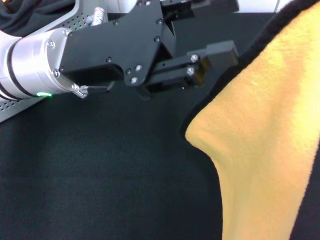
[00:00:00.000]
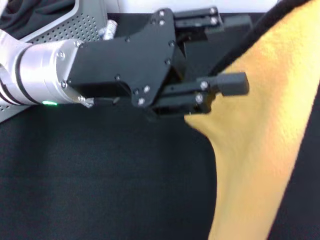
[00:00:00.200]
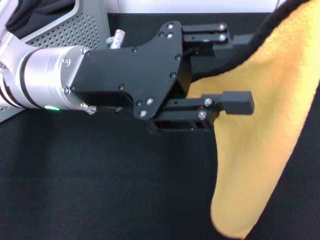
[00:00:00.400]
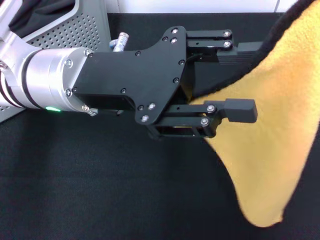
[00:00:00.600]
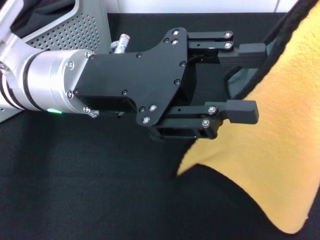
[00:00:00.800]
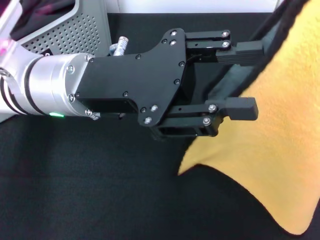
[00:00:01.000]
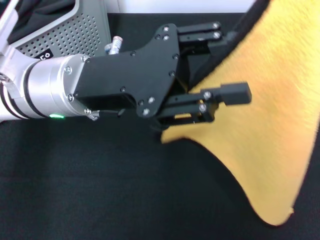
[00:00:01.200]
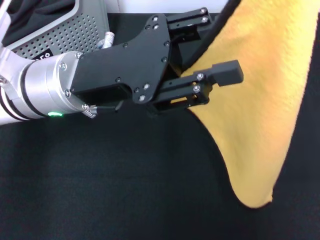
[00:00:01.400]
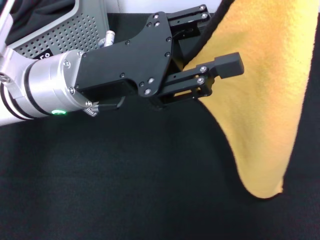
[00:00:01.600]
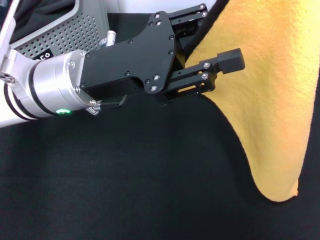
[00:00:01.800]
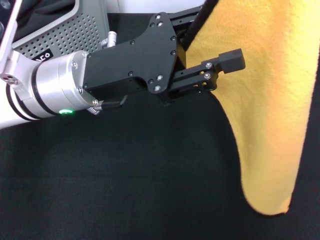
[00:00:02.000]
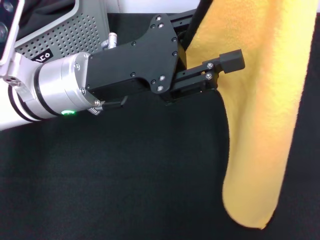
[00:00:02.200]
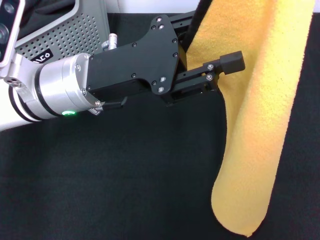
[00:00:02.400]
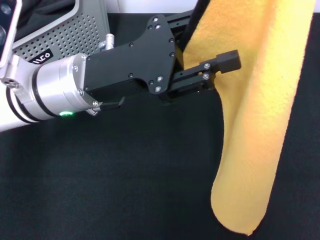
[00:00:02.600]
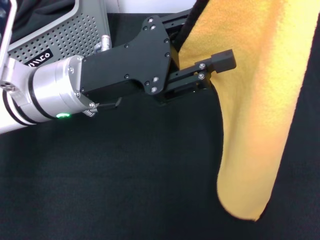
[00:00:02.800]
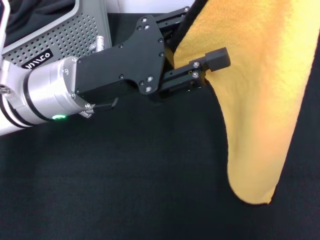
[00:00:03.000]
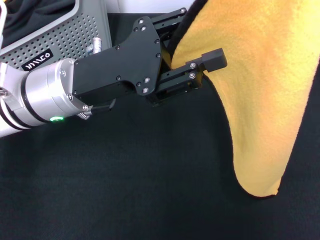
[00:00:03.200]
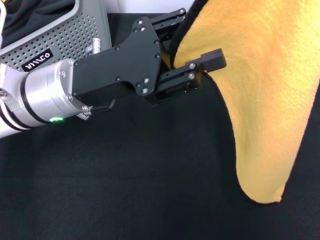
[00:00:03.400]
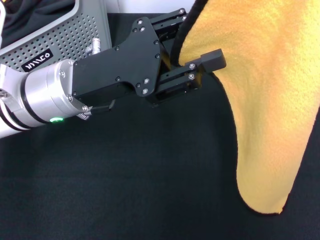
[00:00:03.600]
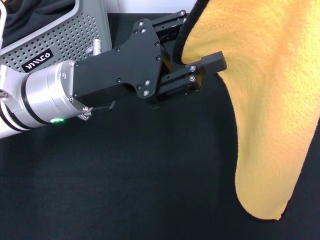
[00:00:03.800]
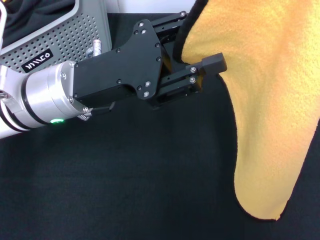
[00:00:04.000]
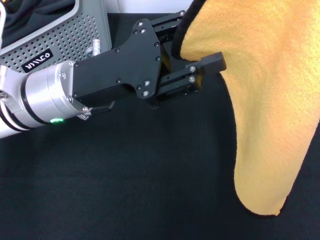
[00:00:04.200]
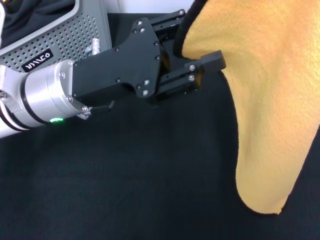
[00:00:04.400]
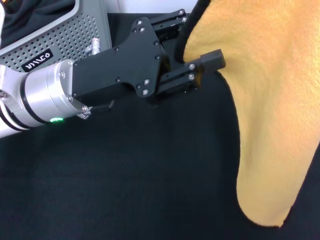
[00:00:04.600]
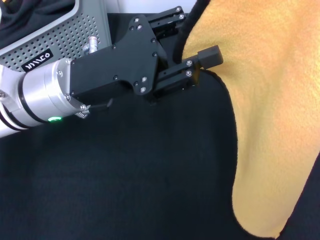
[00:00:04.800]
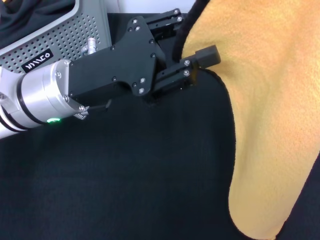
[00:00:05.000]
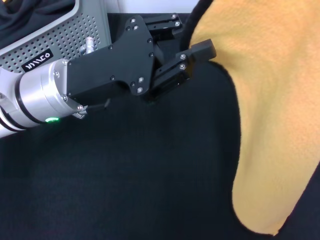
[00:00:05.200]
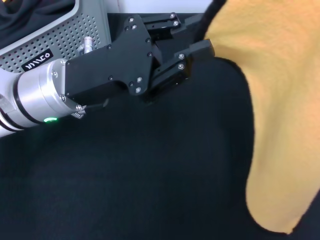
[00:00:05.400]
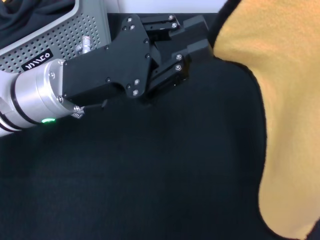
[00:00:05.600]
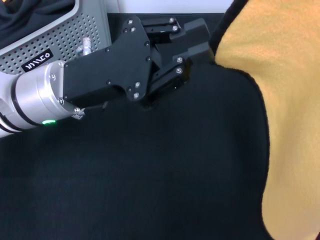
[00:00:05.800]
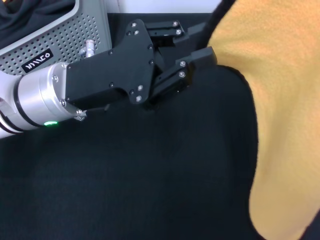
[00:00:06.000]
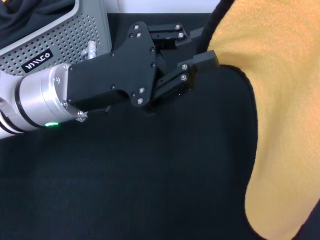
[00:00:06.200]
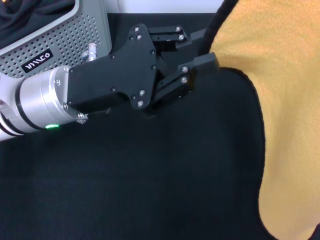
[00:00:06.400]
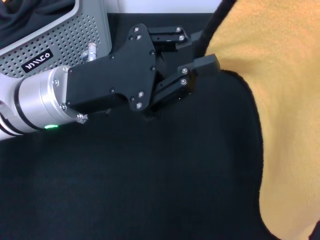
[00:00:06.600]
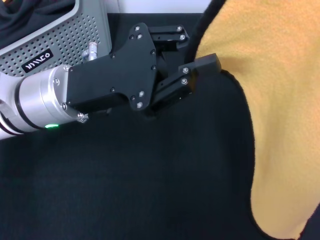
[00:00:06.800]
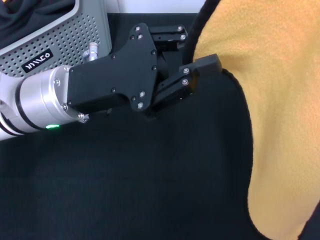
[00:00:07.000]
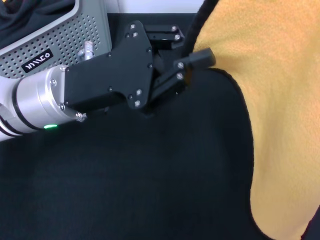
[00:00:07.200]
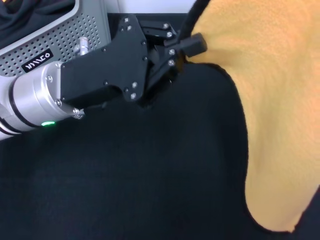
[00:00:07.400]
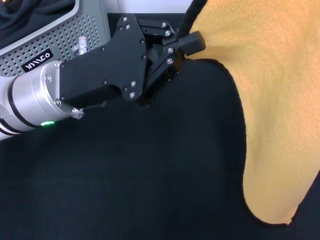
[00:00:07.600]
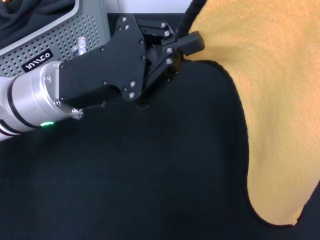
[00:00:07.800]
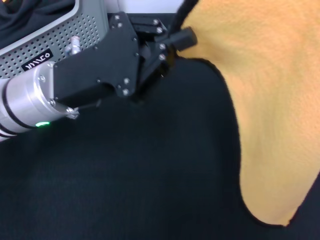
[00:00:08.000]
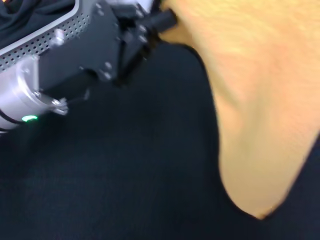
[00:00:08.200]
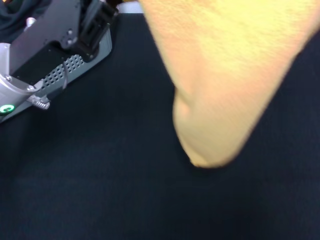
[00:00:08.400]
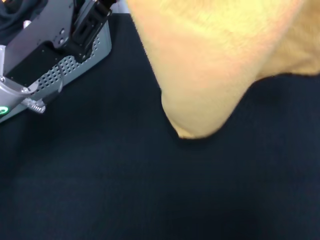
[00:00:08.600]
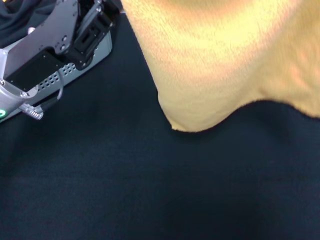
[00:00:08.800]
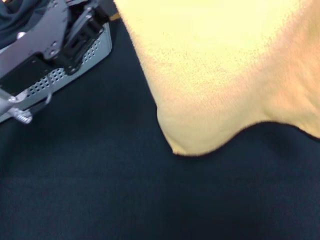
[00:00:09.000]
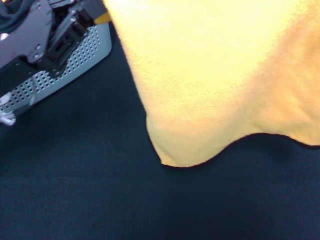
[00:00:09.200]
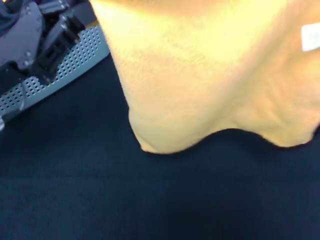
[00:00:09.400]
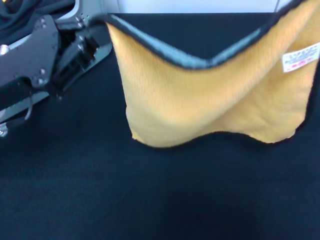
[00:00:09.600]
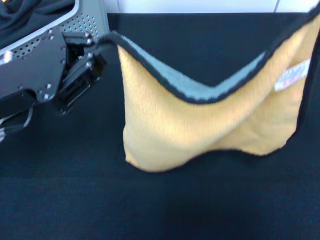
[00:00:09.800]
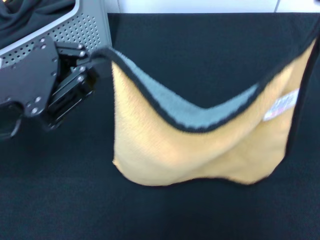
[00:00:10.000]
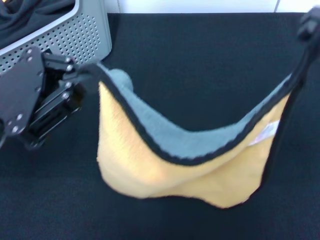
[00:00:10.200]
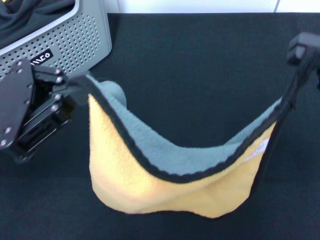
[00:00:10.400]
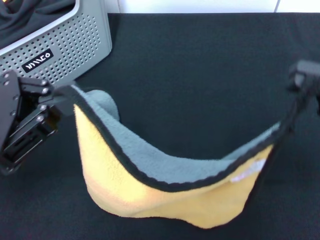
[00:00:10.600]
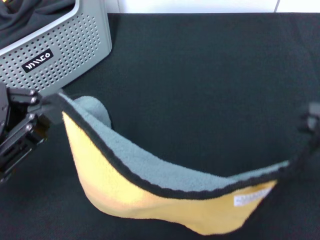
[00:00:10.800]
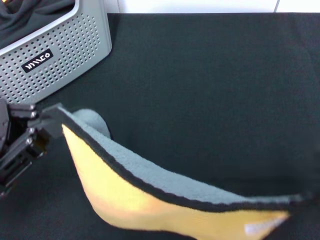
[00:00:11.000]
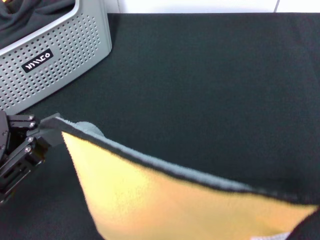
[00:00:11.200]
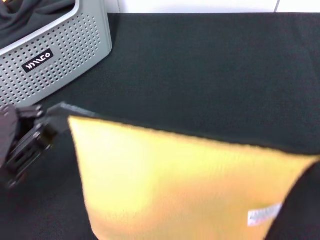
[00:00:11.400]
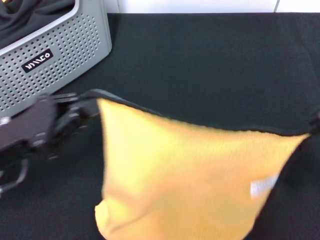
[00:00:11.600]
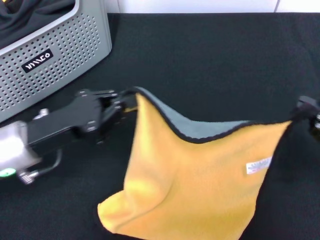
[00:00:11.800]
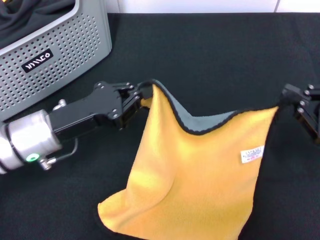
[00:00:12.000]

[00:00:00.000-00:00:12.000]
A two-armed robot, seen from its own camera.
Task of the whole recording: pick up the towel from the storage box and lay it flat on the black tablecloth.
00:00:01.600 to 00:00:03.000: There are only small adjustments of the grippers.
00:00:03.000 to 00:00:04.400: The grippers stay close to where they were, moving slightly.
00:00:06.000 to 00:00:07.600: The grippers make only small movements.
00:00:07.600 to 00:00:09.000: The right gripper heads downward, covering approximately 10 cm. The left gripper is displaced to the left by some 5 cm.
00:00:09.000 to 00:00:10.400: The right gripper goes roughly 10 cm downward and backward; the left gripper shifts approximately 5 cm backward.
00:00:10.400 to 00:00:12.000: The right gripper is displaced downward by roughly 15 cm, while the left gripper is displaced downward and forward by some 10 cm.

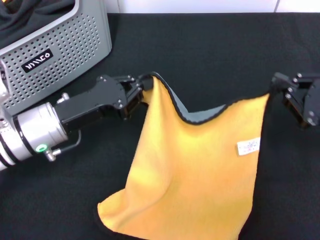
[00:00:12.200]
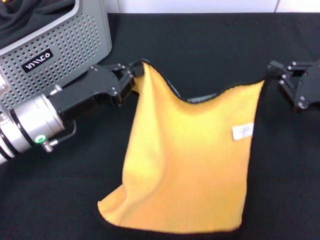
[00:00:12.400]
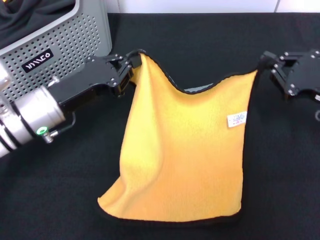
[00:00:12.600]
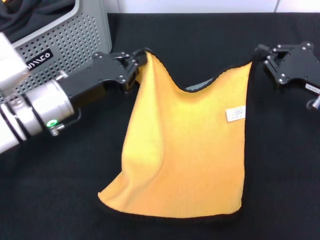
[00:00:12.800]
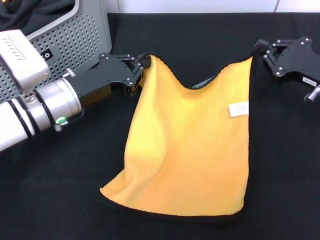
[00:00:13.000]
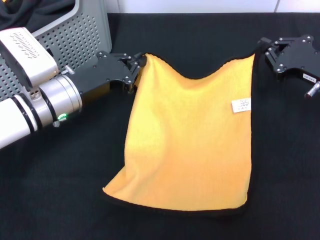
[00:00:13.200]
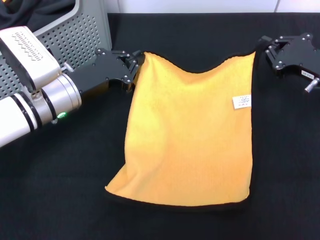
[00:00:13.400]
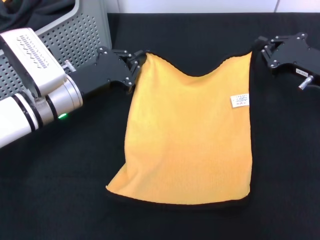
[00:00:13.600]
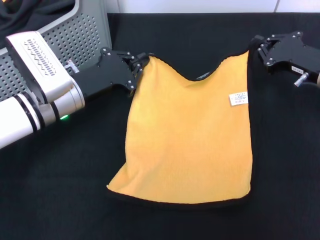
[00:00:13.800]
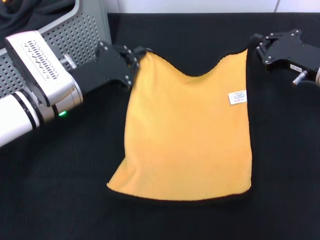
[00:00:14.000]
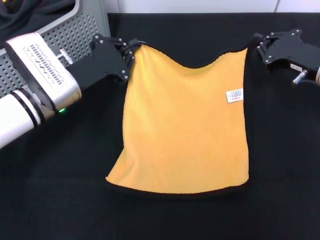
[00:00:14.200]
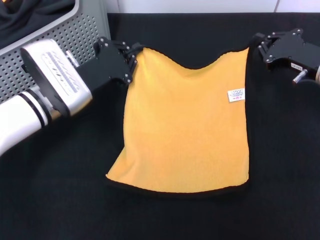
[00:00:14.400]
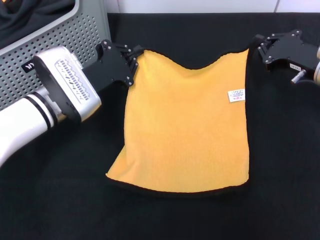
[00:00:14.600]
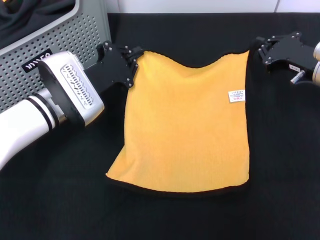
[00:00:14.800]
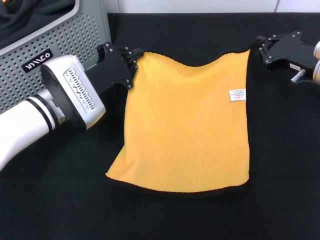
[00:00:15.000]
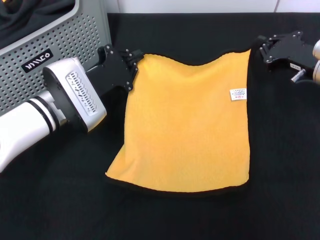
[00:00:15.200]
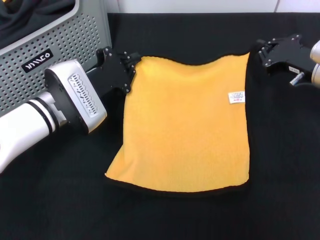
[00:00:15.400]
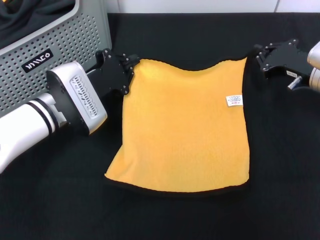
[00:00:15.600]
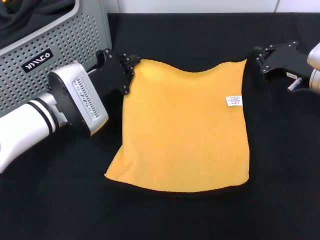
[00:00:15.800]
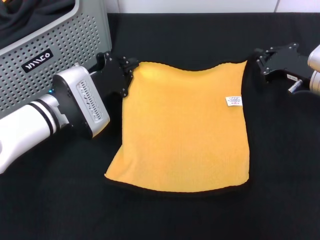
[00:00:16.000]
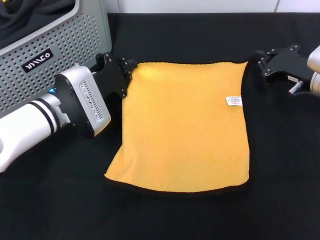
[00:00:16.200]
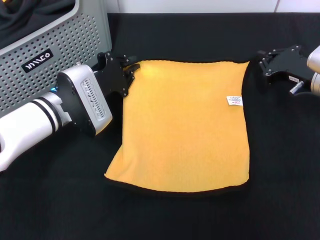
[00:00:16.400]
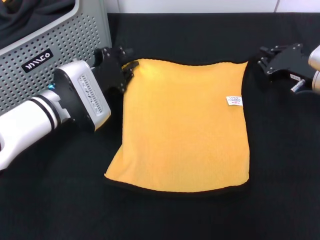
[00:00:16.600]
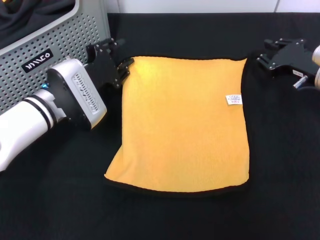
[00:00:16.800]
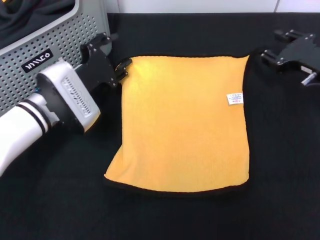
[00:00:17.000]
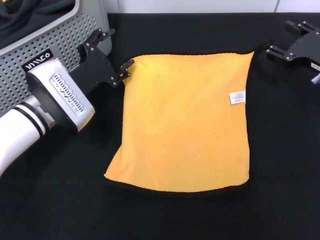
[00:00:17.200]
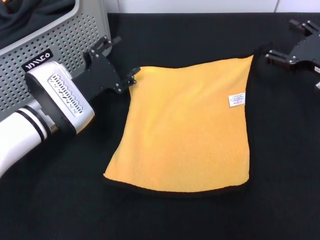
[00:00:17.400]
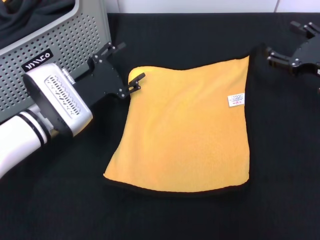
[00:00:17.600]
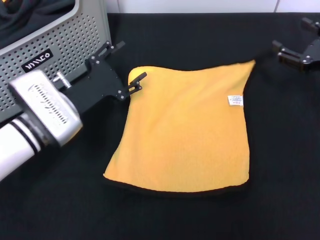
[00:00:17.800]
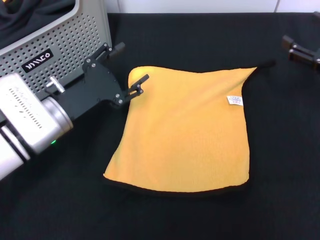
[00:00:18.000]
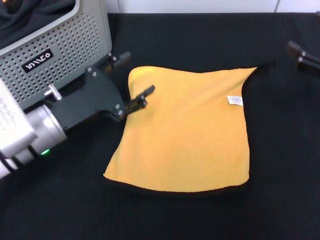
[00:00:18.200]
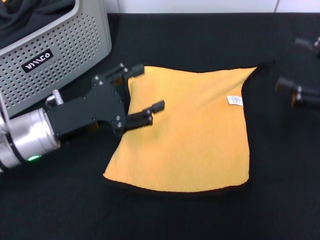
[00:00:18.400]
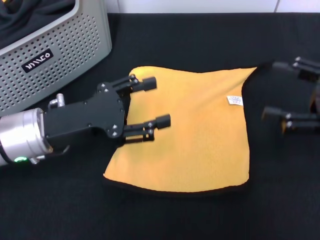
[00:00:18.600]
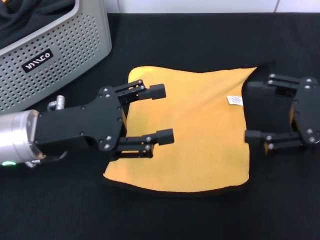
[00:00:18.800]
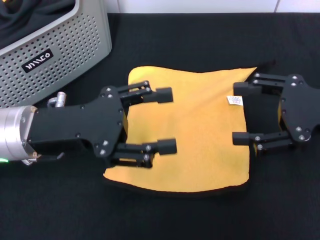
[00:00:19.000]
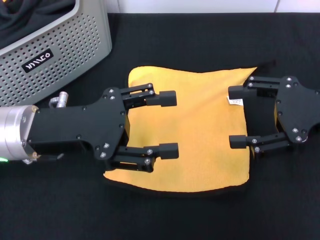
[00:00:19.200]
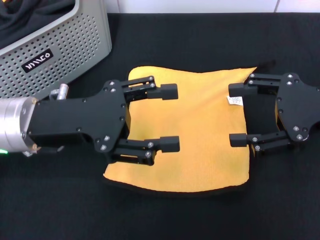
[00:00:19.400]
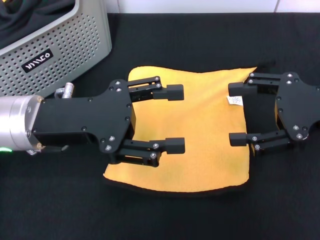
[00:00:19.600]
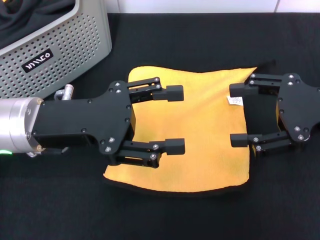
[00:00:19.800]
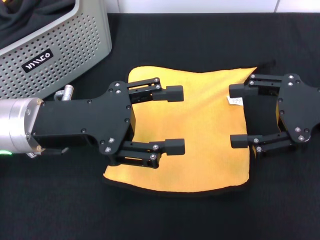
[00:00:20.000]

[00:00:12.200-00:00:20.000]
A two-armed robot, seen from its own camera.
Task of the whole recording: pick up the towel from the storage box and lay it flat on the black tablecloth.
Step, 00:00:12.200 to 00:00:17.400: Spread the towel flat with the right gripper.
00:00:12.200 to 00:00:13.800: The right gripper is displaced forward by approximately 10 cm; the left gripper moves forward, some 5 cm.
00:00:15.400 to 00:00:16.800: The grippers make only small movements.
00:00:16.800 to 00:00:18.400: The left gripper travels backward by roughly 10 cm, and opens its fingers. The right gripper heads backward, upward and to the right, covering roughly 15 cm, and opens its fingers.
00:00:18.400 to 00:00:20.000: The left gripper shifts approximately 5 cm upward; the right gripper travels to the left by about 5 cm.
